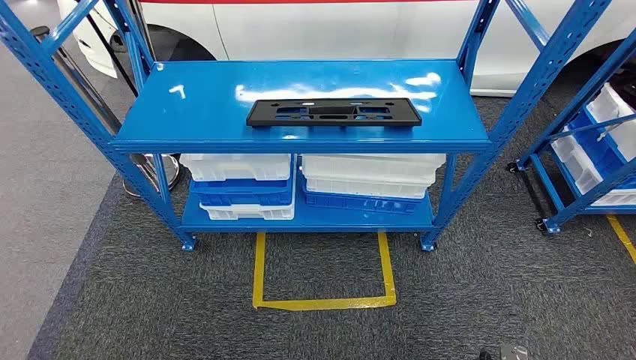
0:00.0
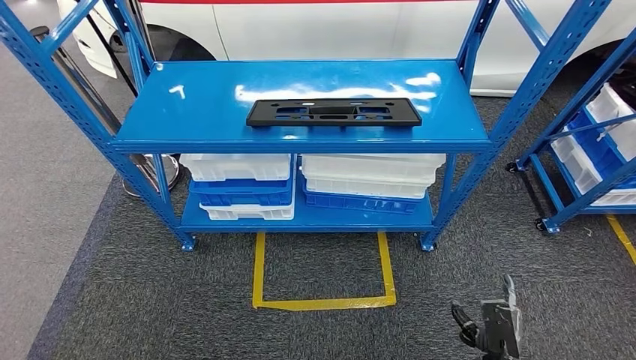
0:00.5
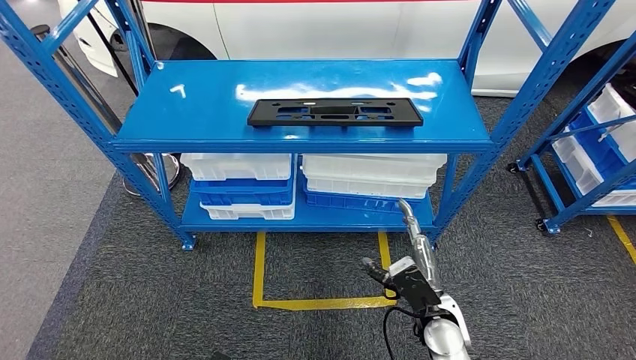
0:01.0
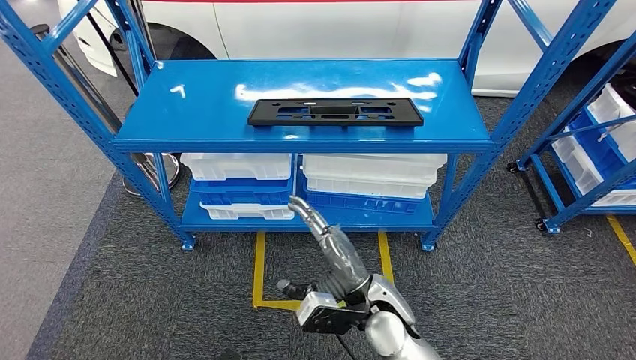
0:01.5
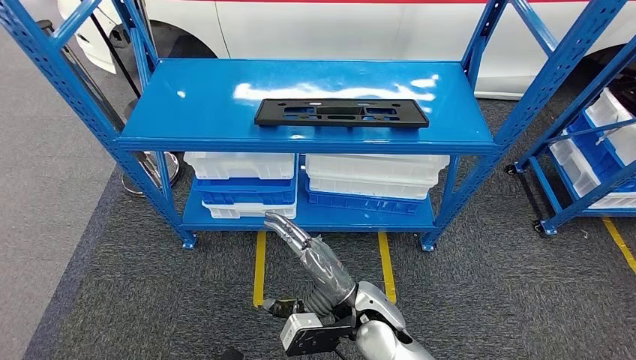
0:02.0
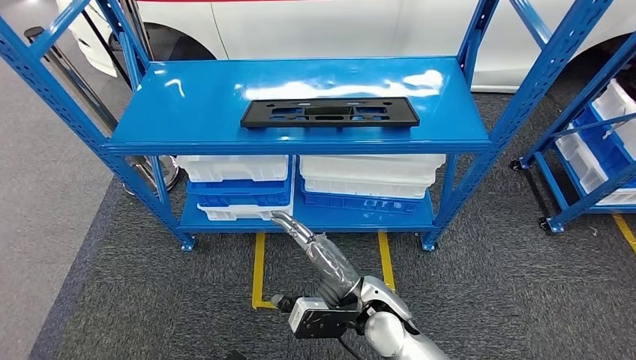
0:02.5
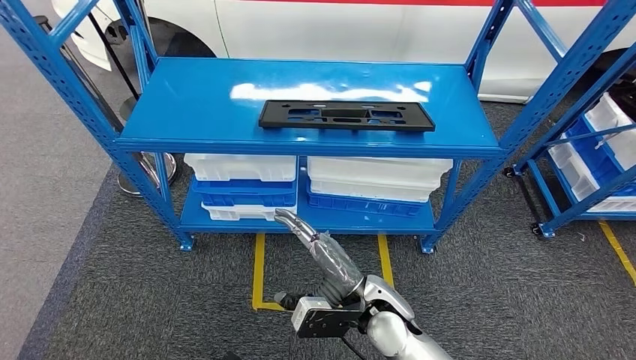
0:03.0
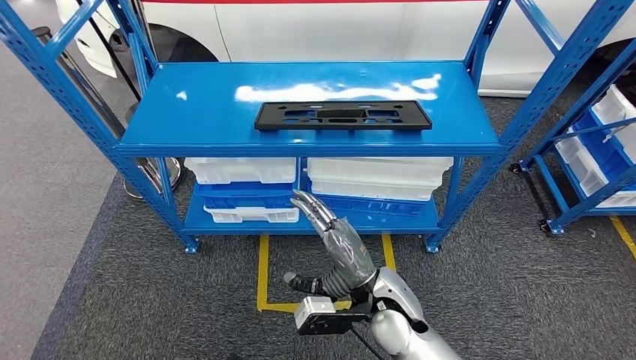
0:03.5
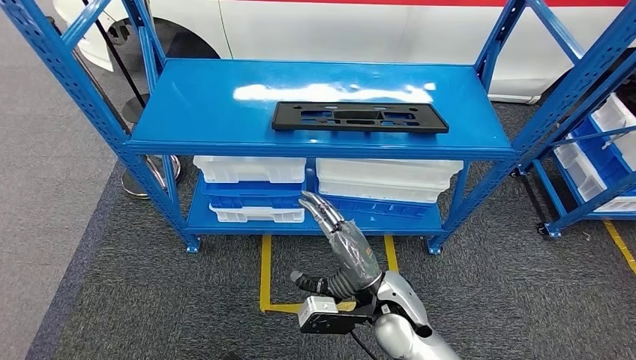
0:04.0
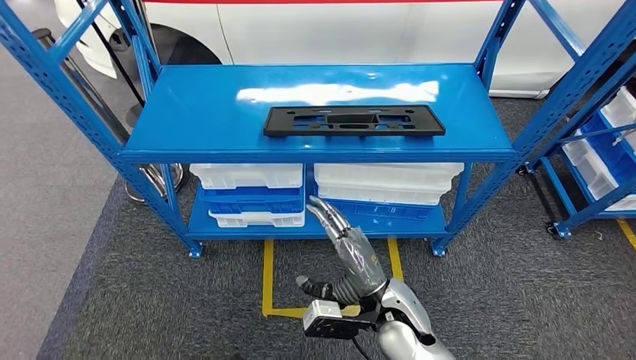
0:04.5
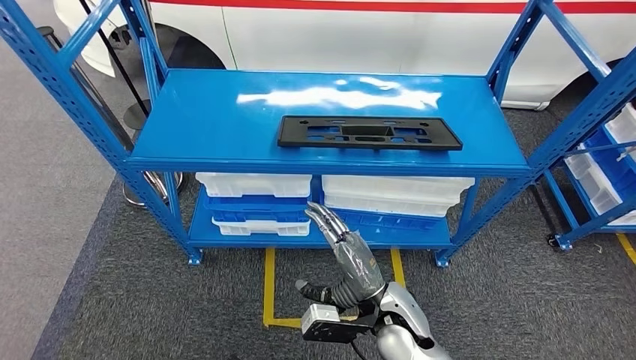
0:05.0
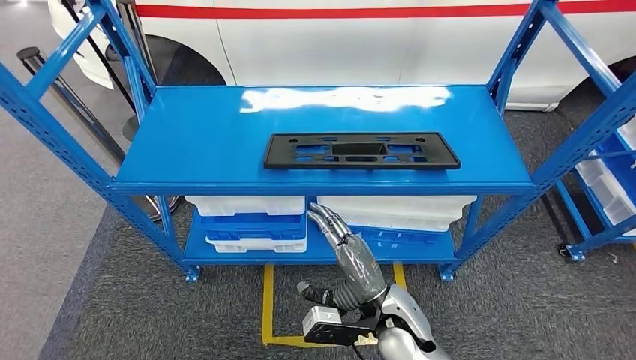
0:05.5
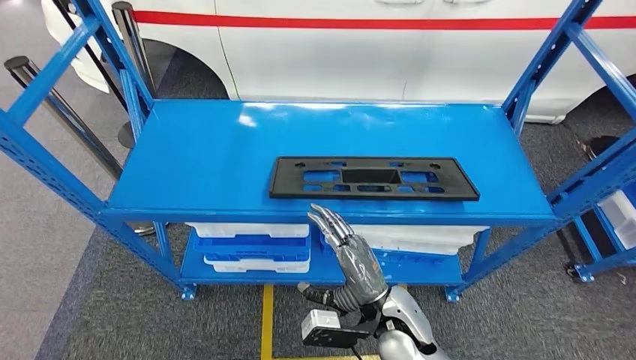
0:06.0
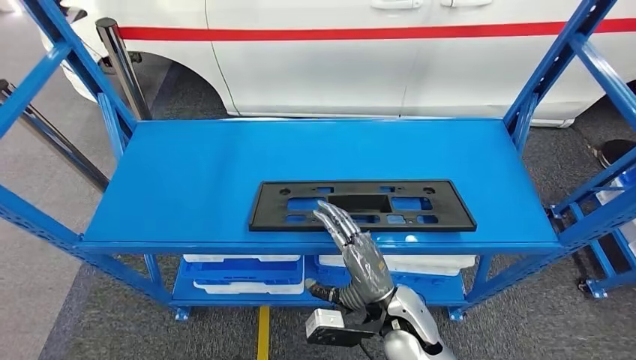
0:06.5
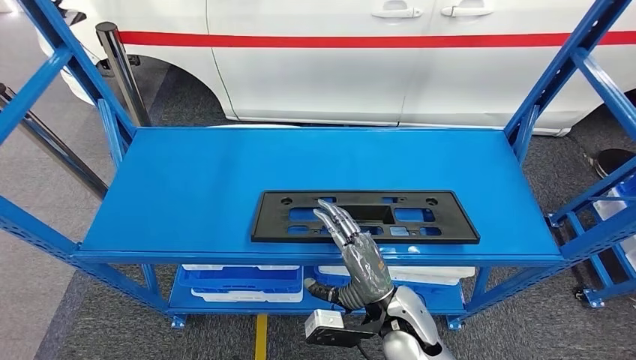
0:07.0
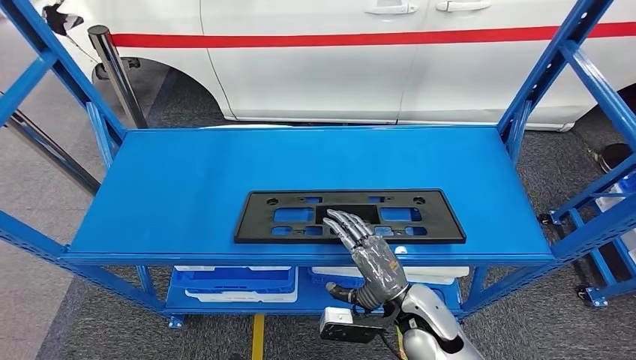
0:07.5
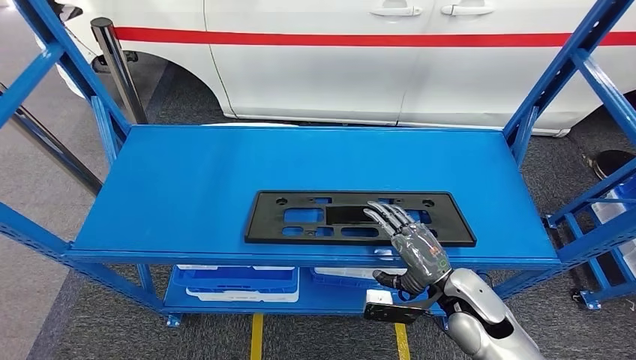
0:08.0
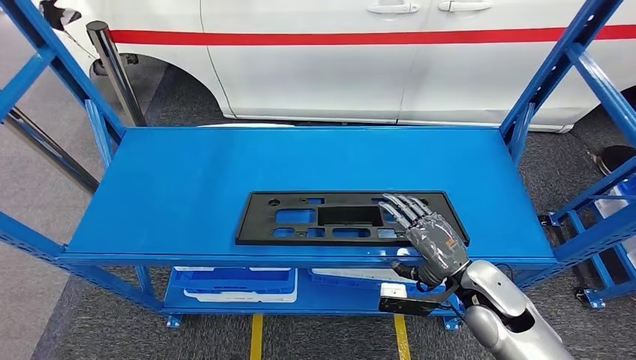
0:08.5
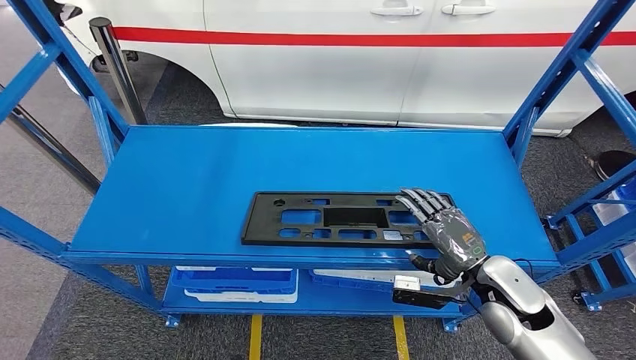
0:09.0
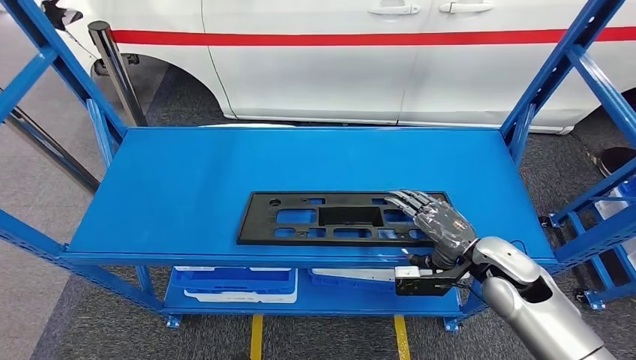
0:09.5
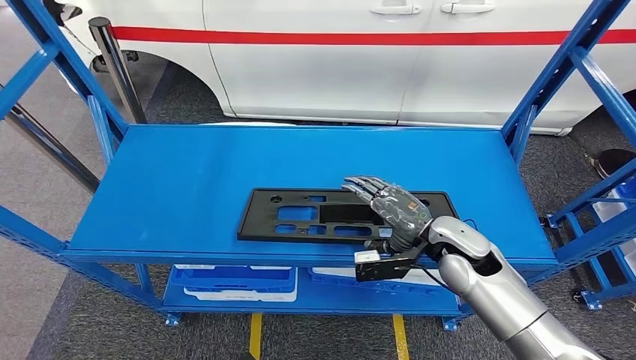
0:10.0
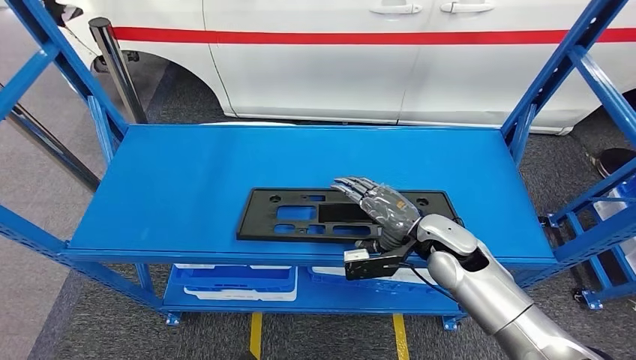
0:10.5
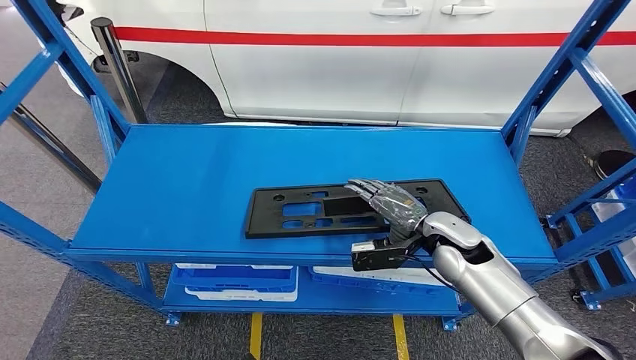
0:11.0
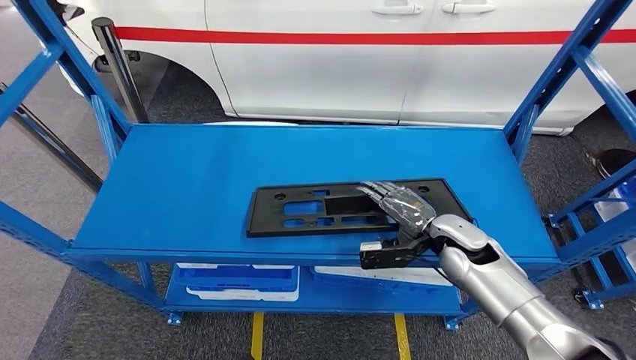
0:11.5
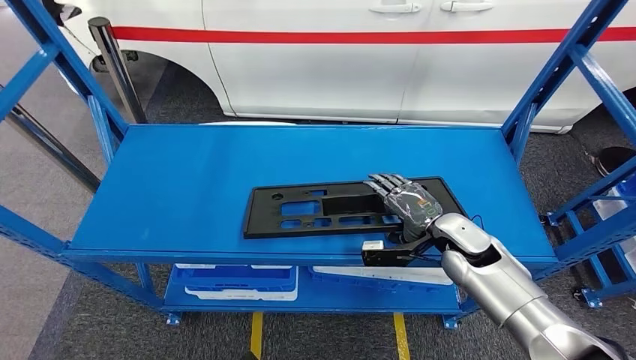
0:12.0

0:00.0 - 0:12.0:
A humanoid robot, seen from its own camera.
0:08.0 - 0:10.0: The right hand heads forward and upward, covering approximately 10 cm.
0:10.0 - 0:12.0: The hands stay close to where they were, moving slightly.

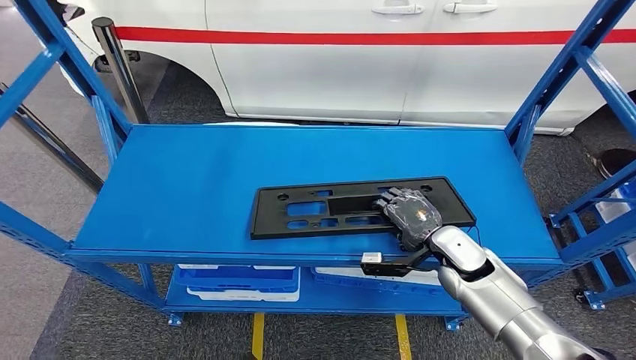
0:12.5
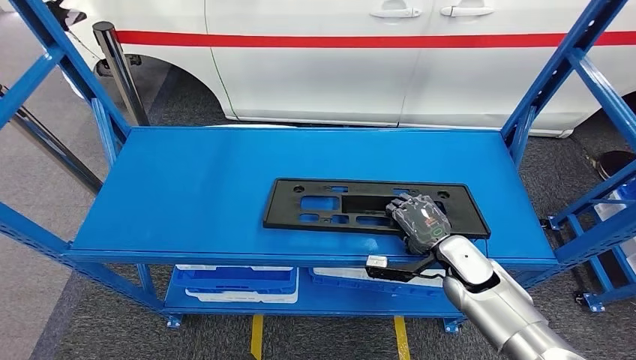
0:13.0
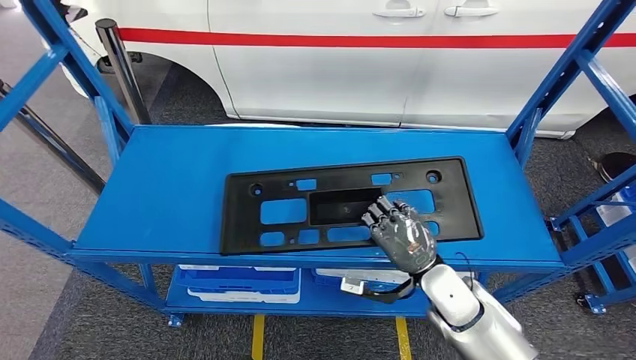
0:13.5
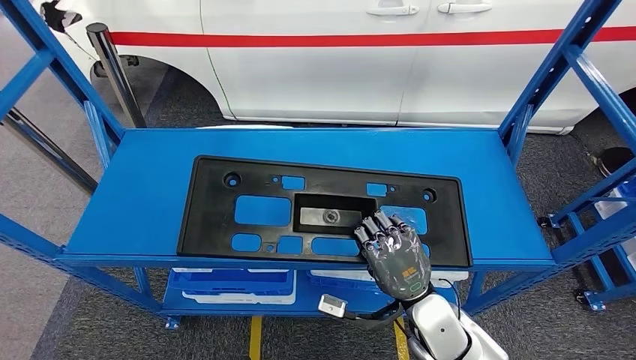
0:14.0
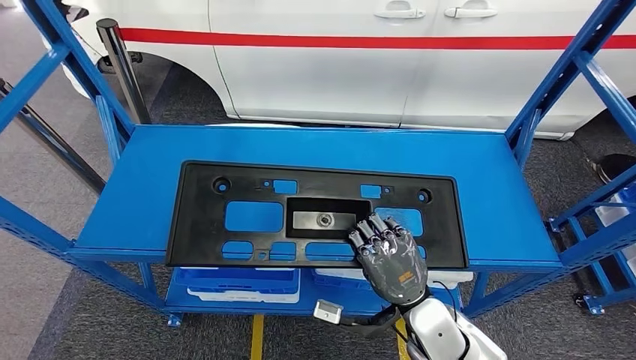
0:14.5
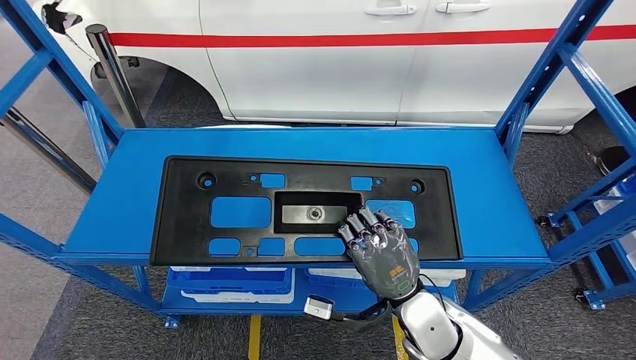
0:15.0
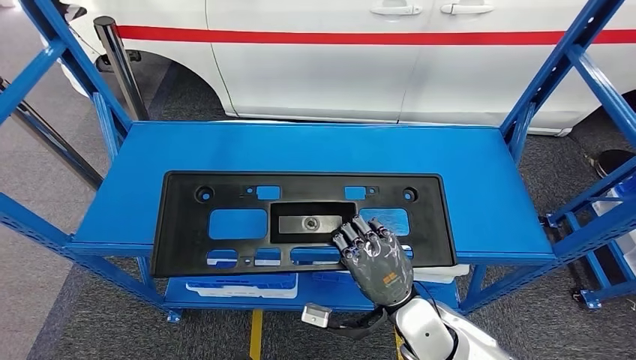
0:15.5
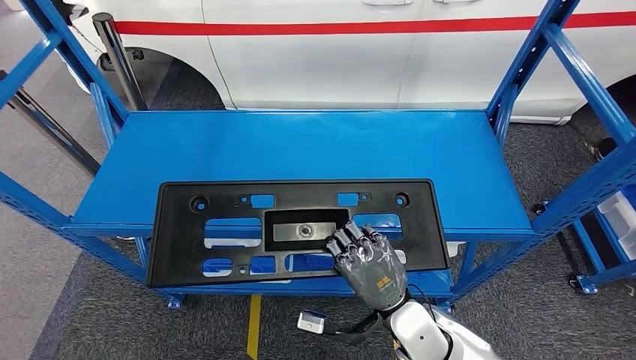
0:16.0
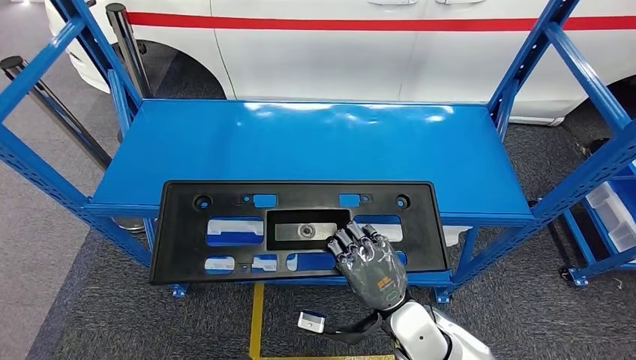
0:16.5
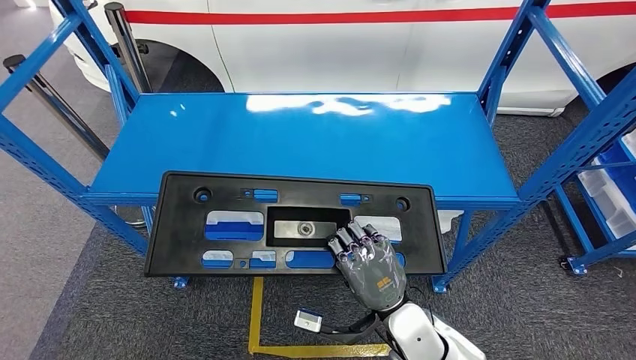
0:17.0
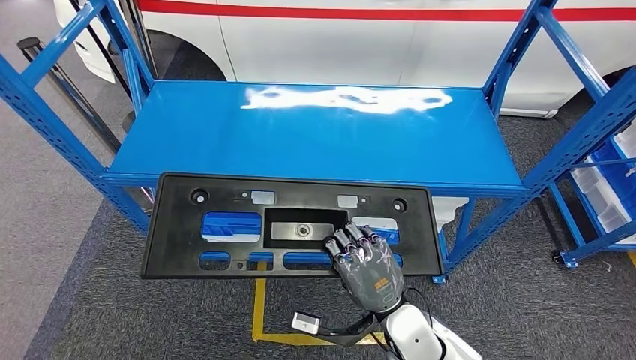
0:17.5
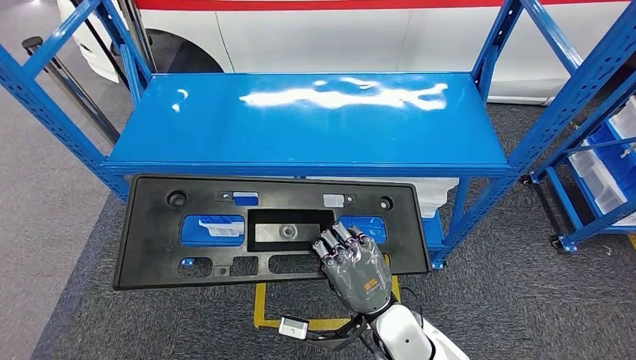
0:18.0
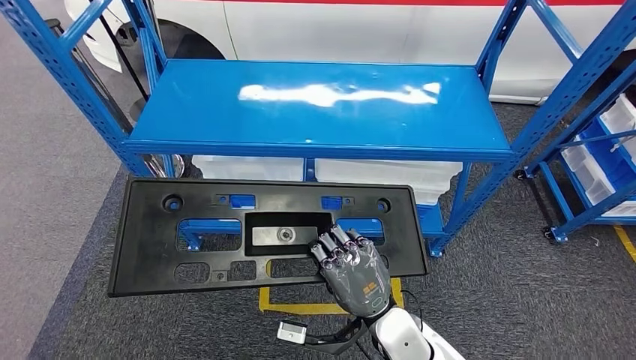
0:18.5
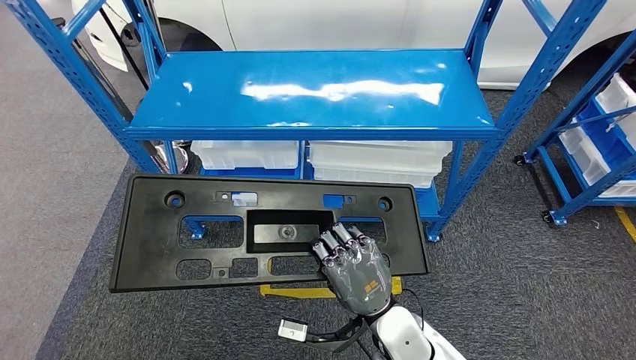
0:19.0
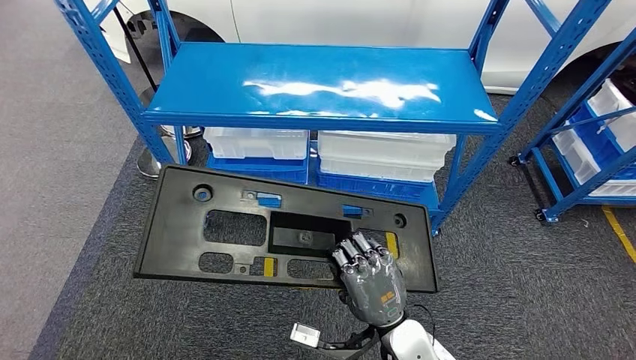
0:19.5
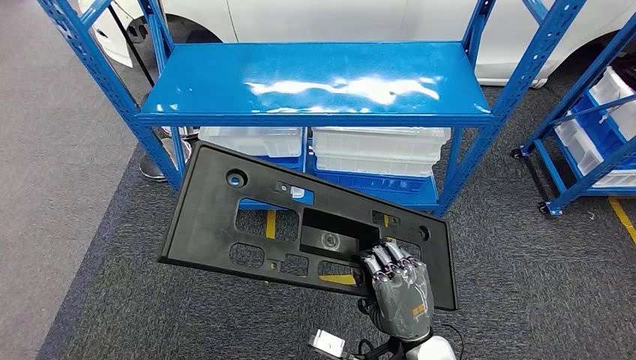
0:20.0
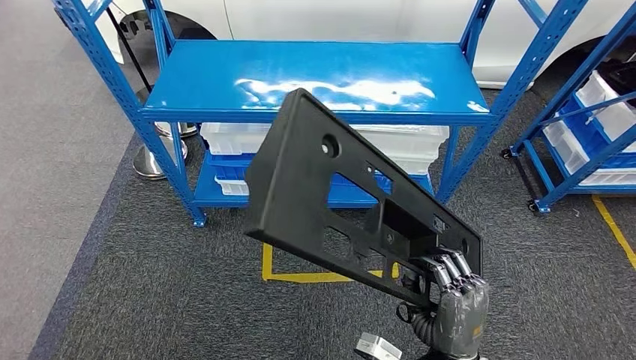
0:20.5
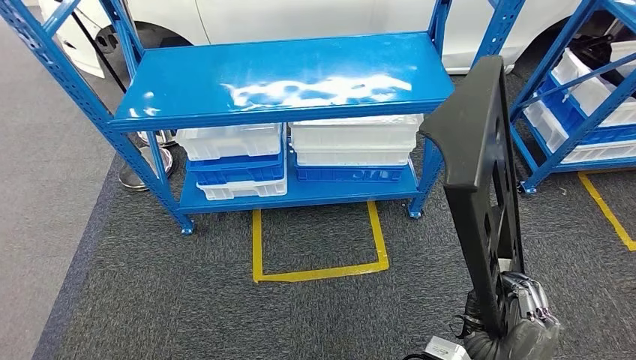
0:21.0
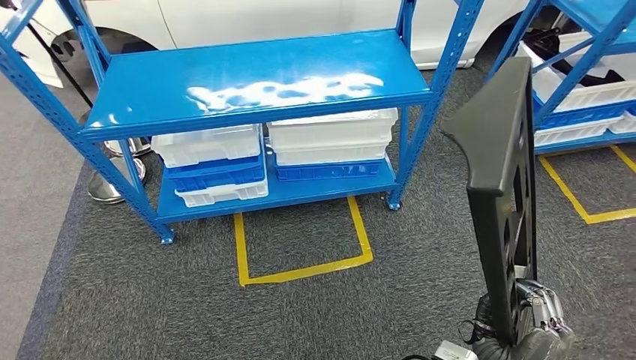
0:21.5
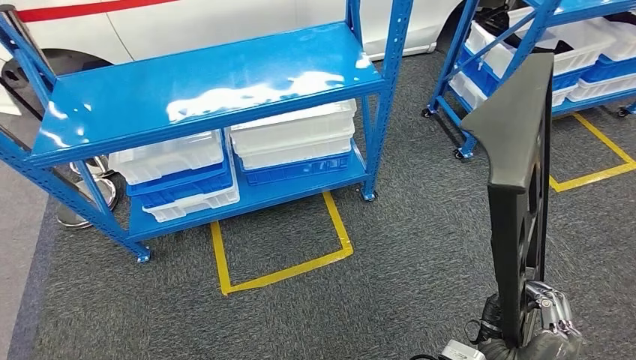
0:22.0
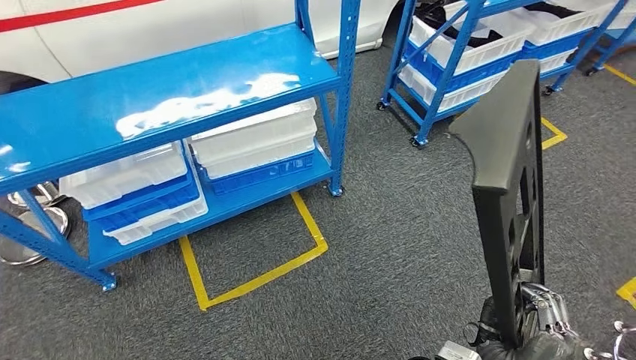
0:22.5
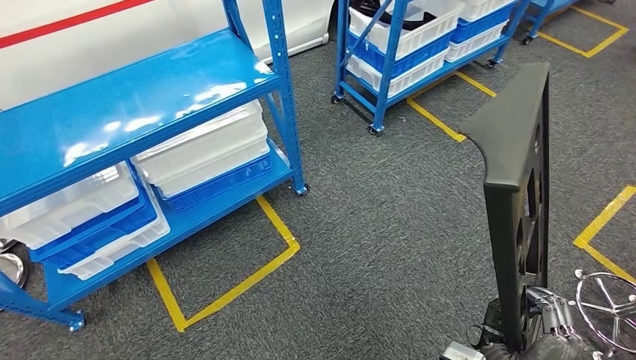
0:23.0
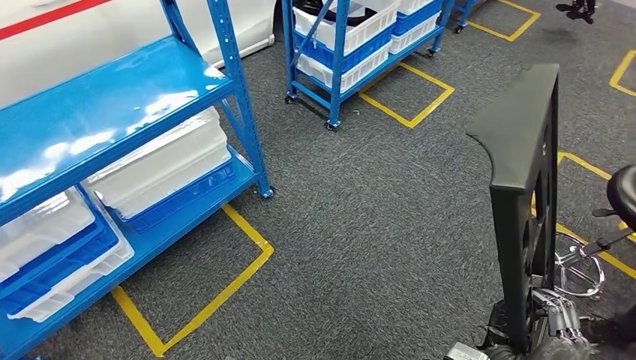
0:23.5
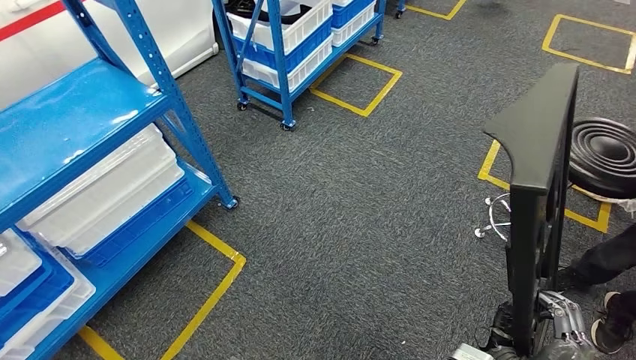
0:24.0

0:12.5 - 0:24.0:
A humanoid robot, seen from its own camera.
Step, 0:12.5 - 0:14.5: Pick up the large material from the shelf.
